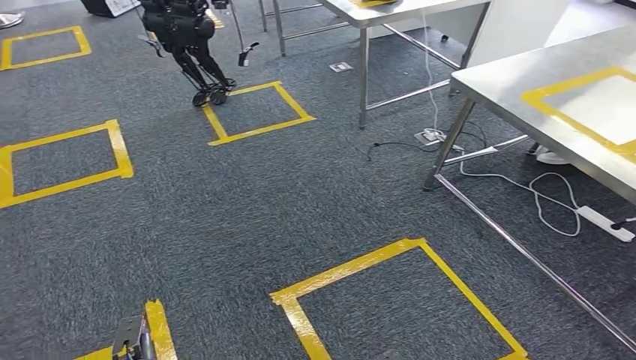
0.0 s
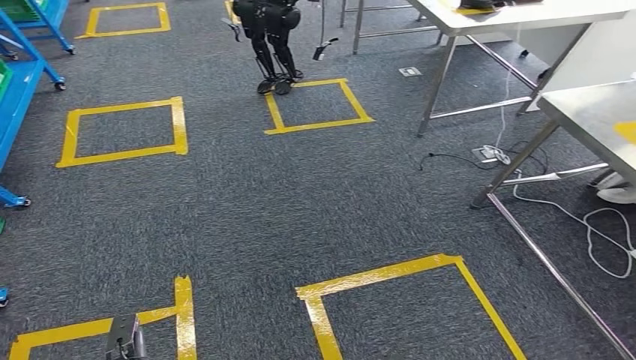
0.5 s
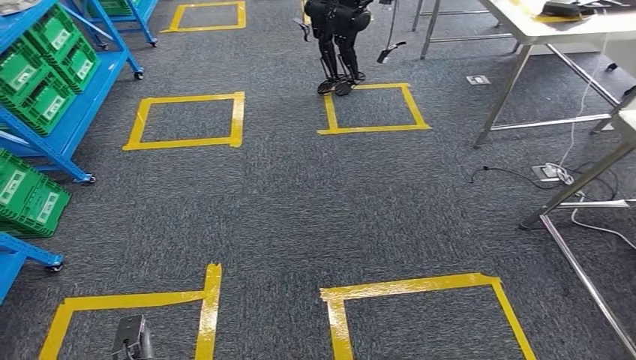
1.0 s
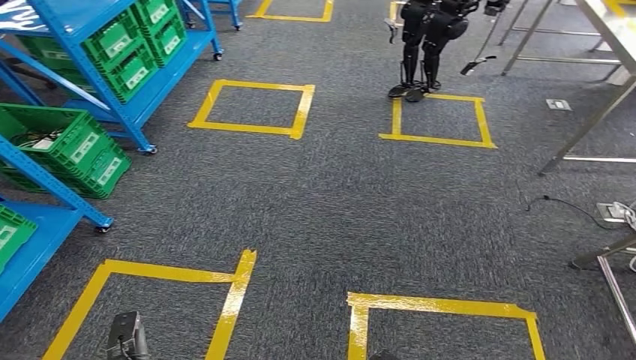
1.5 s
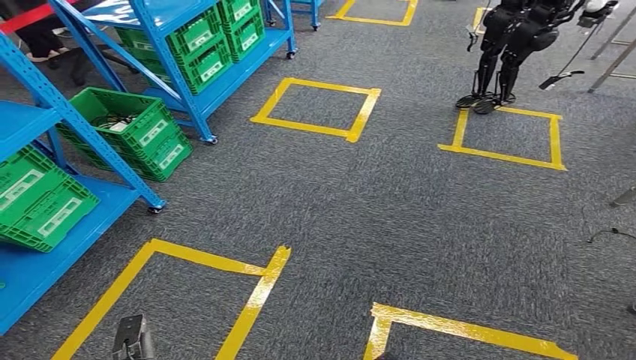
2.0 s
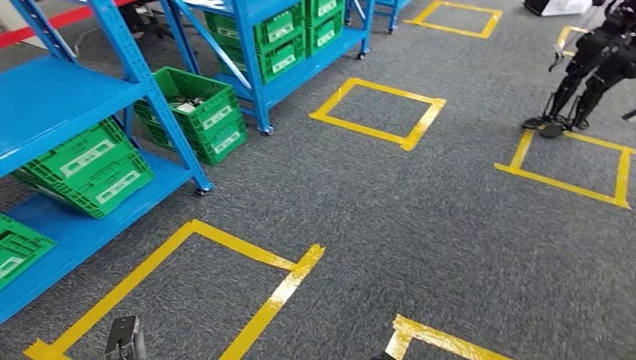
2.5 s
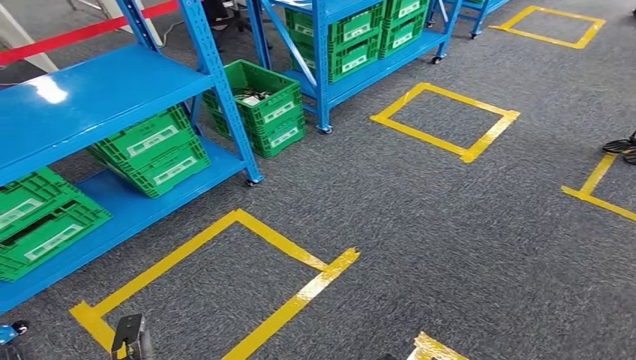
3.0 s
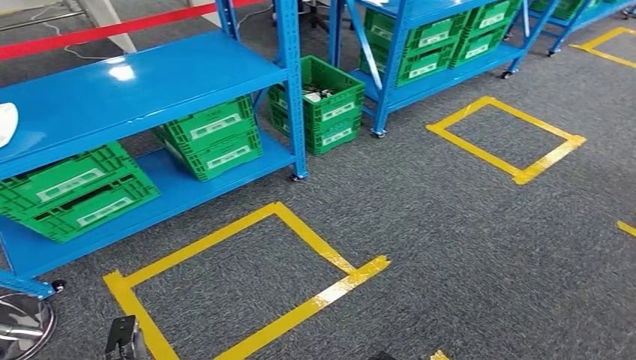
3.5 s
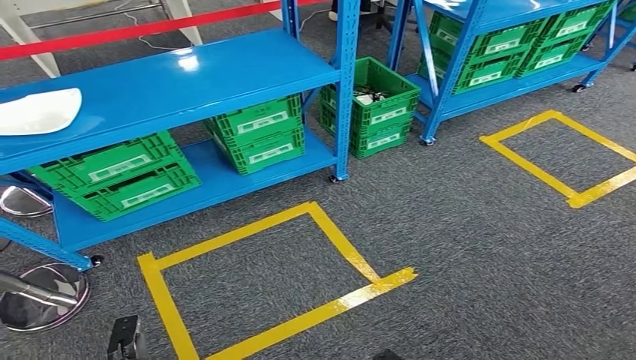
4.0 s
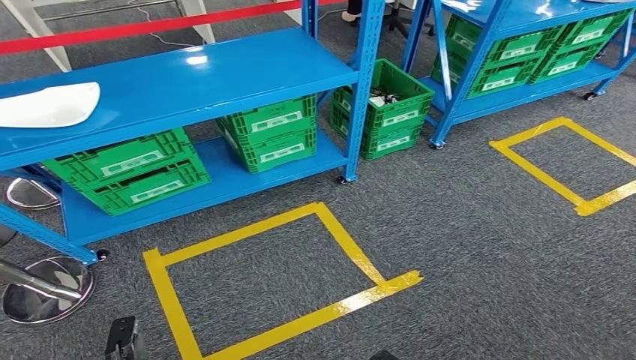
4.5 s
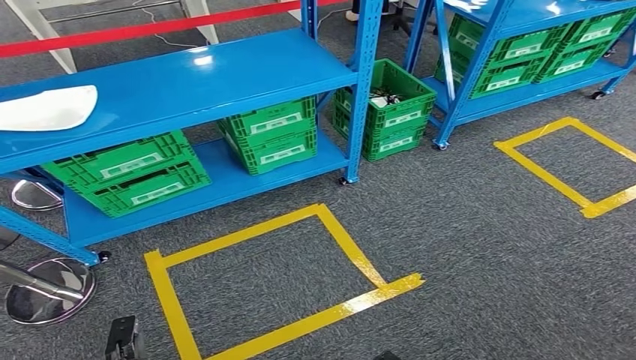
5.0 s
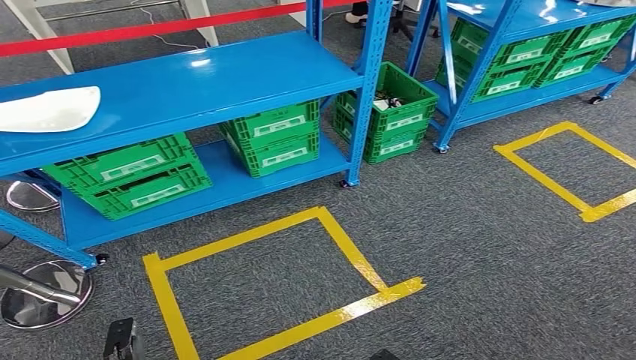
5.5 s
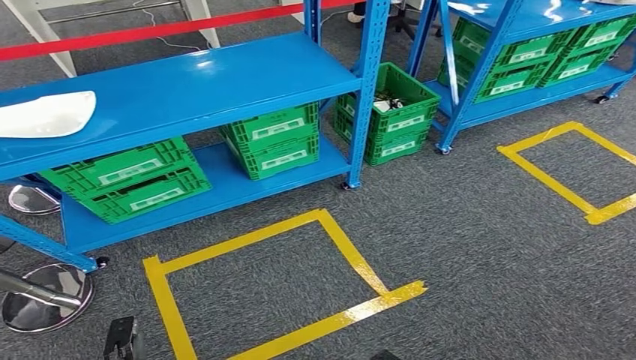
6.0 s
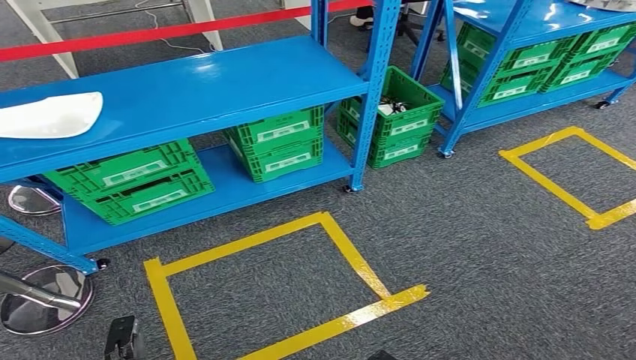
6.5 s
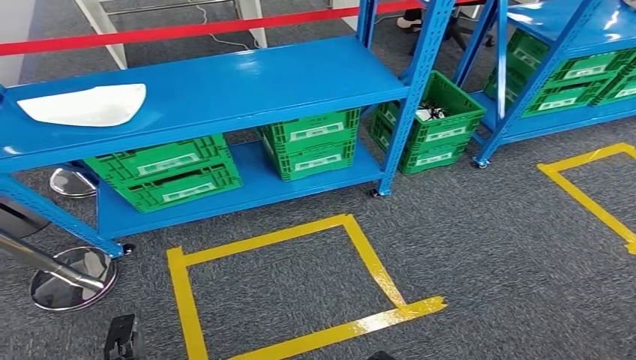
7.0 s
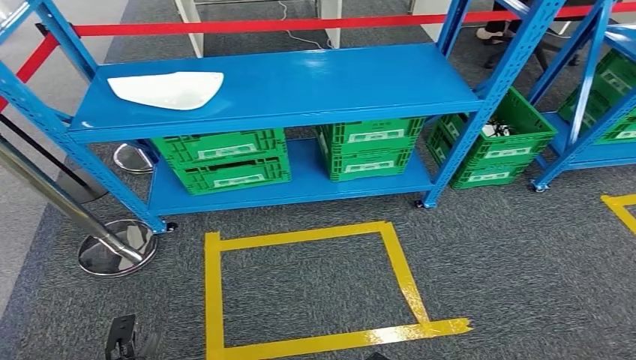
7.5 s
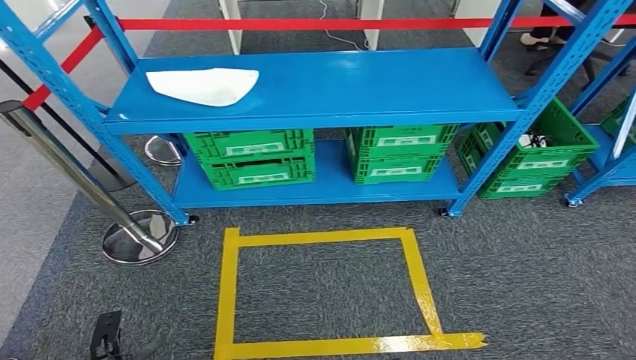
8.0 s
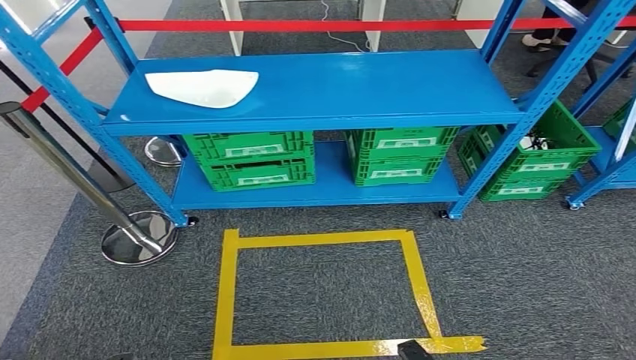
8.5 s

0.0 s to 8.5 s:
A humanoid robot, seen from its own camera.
Step, 0.0 to 8.5 s: Move to the initial position of the workbench.
